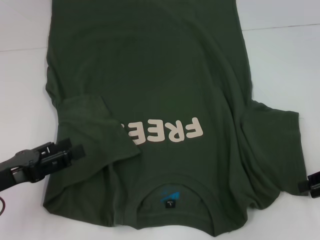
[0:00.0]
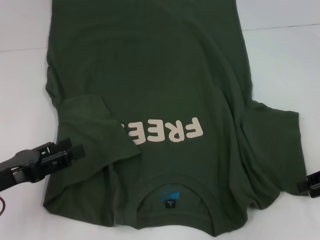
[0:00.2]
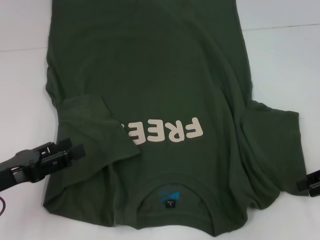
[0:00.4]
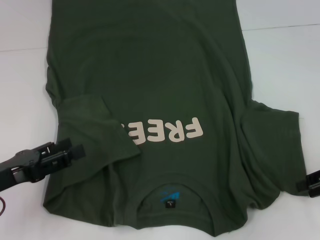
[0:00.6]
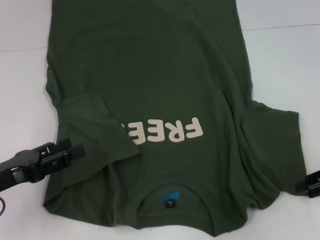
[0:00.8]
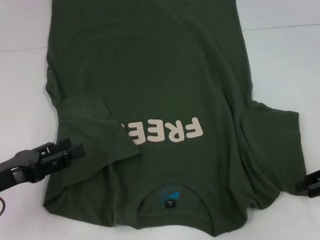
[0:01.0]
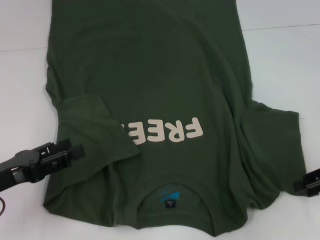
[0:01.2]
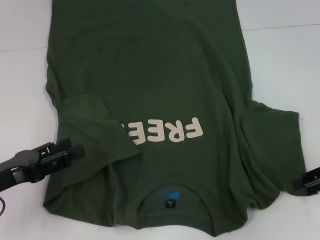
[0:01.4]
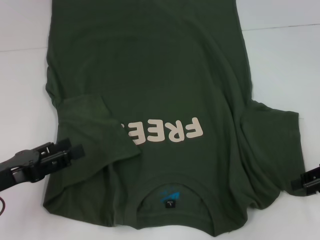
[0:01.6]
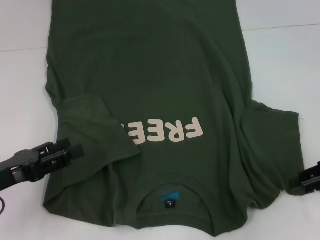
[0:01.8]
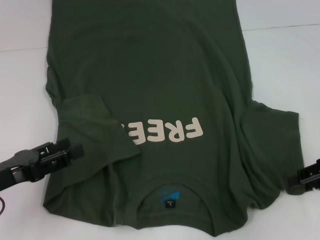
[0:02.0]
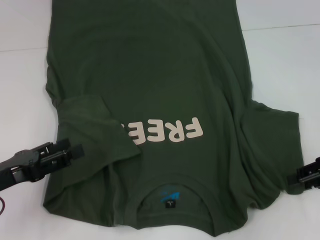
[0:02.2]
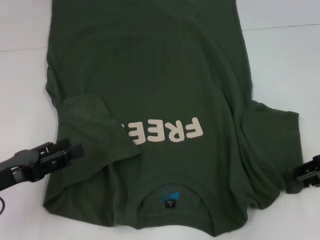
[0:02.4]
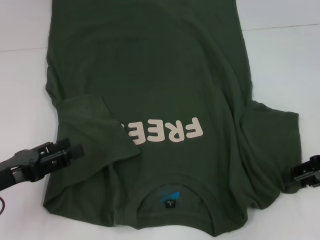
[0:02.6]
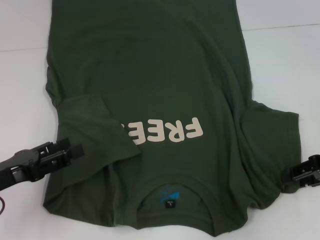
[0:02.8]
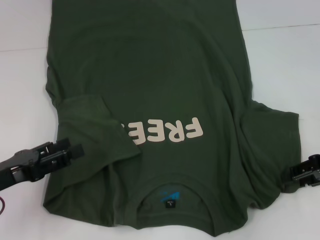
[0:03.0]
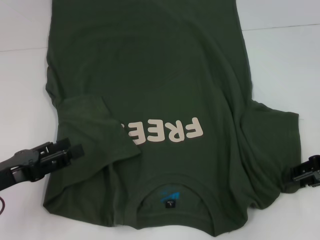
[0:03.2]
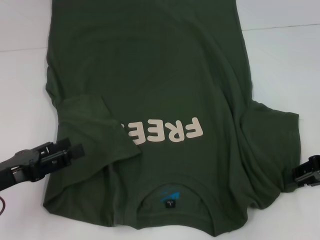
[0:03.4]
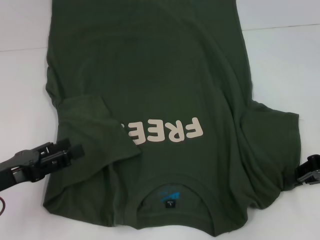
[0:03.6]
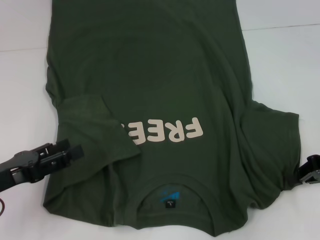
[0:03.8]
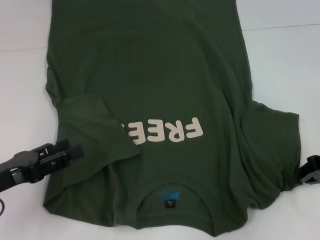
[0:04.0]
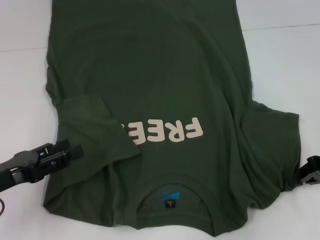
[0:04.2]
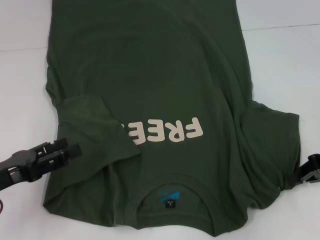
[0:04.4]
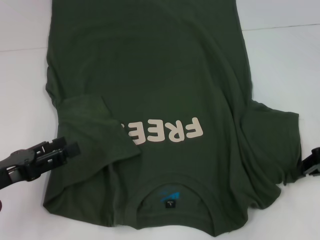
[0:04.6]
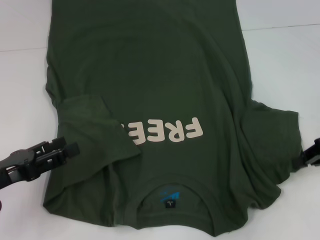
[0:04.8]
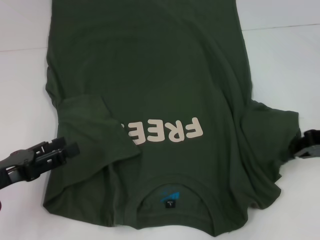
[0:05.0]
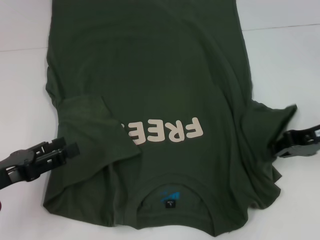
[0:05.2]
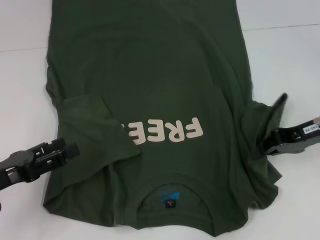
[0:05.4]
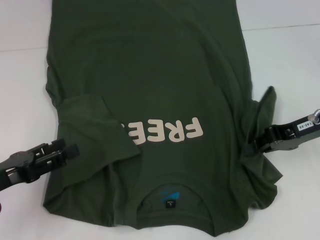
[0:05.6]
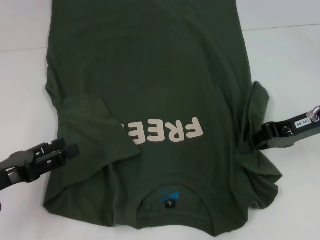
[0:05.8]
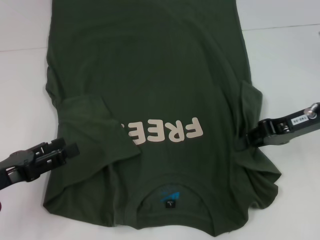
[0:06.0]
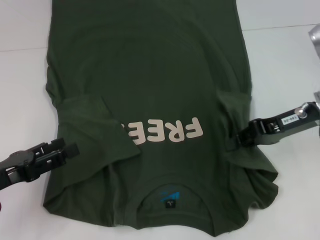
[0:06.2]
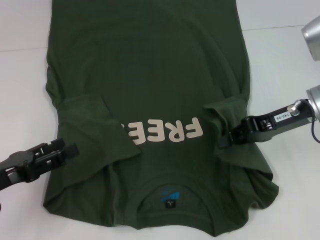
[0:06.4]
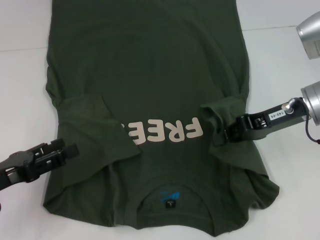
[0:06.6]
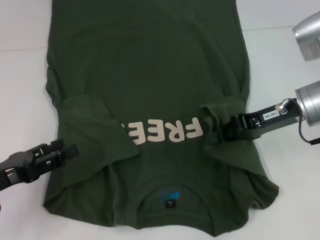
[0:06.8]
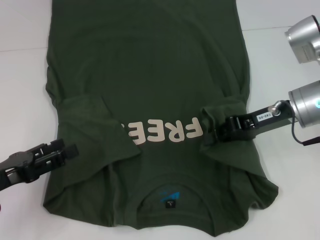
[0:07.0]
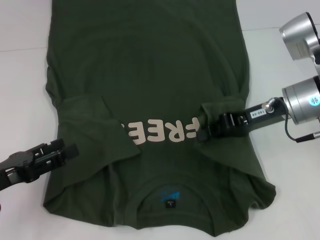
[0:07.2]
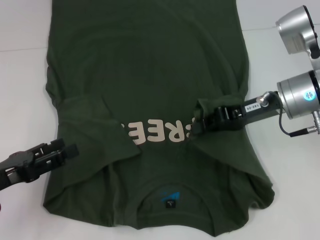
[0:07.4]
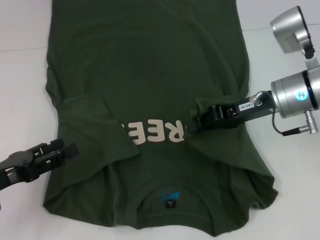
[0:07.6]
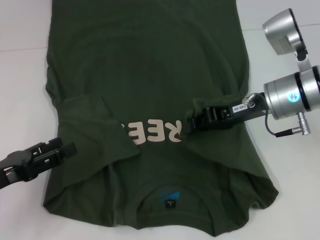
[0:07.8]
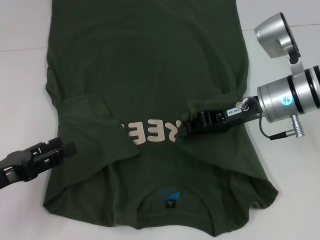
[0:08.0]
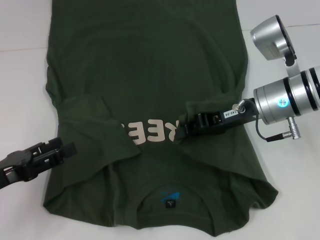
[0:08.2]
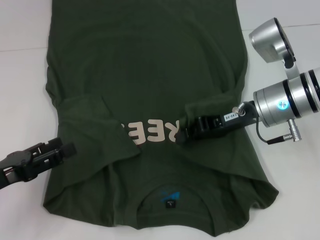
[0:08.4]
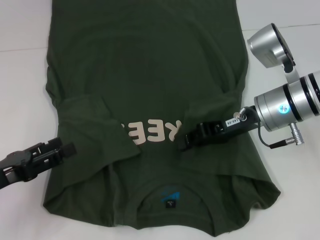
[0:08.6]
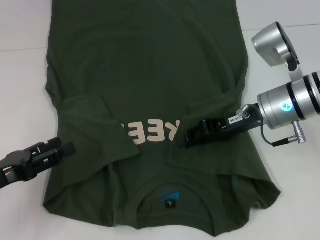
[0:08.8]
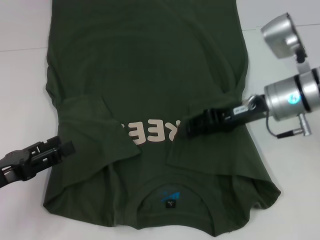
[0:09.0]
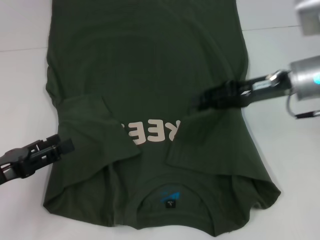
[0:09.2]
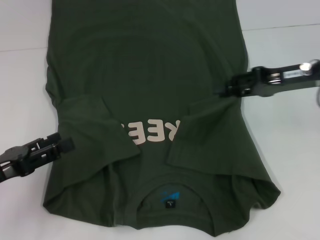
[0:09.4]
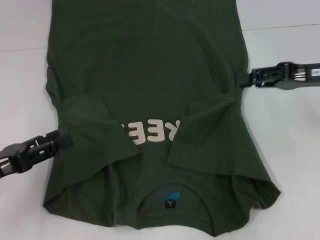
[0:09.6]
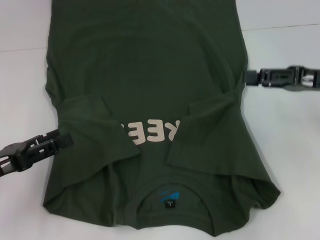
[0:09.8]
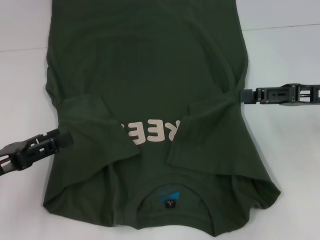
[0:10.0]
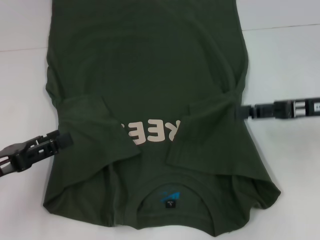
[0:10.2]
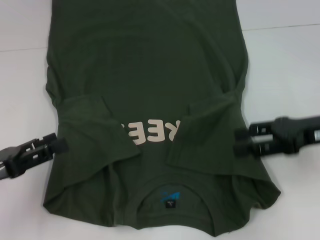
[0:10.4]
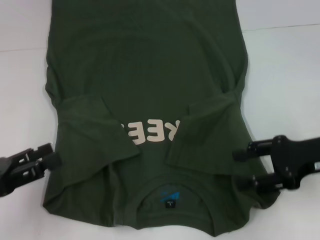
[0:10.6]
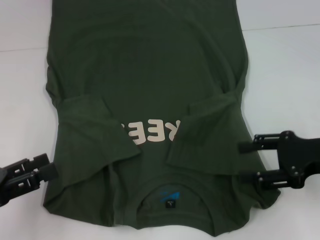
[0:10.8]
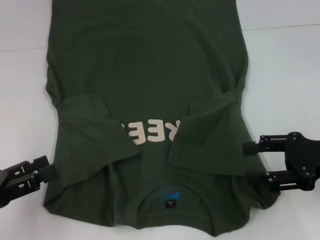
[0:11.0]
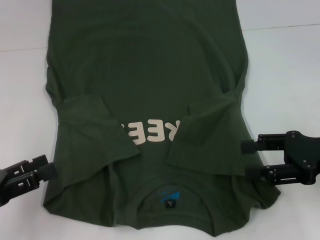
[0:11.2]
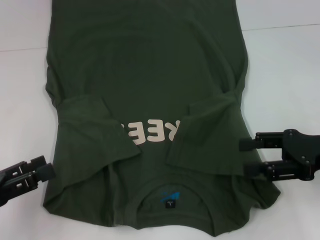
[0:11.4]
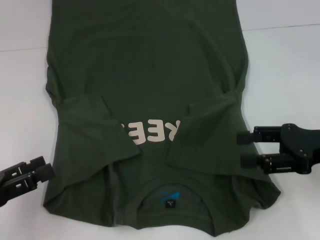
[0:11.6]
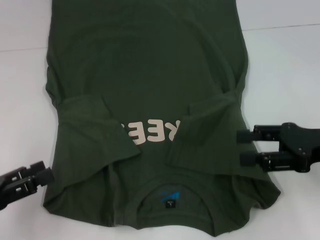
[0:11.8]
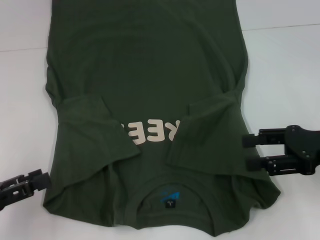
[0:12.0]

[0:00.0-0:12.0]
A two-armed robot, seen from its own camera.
Step, 0:00.0 to 0:08.6: Fold the bottom right sleeve with your right hand.
0:00.0 to 0:01.6: The two grippers keep their place.
0:01.6 to 0:03.0: The grippers make only small movements.
0:03.0 to 0:04.4: The right gripper closes up.
0:04.4 to 0:06.0: The right gripper travels to the left by some 5 cm.
0:06.0 to 0:07.6: The right gripper moves to the left, about 5 cm.
0:07.6 to 0:09.0: There are only small adjustments of the grippers.
0:09.0 to 0:10.4: The right gripper moves to the right and backward, about 10 cm, and opens its fingers.
0:10.4 to 0:12.0: There are only small adjustments of the grippers.

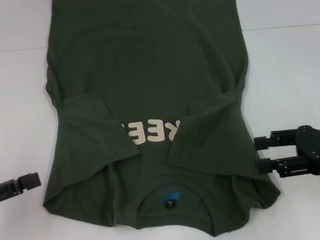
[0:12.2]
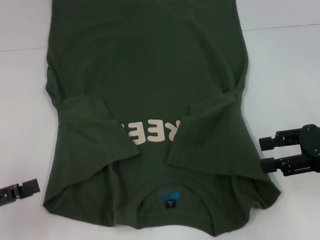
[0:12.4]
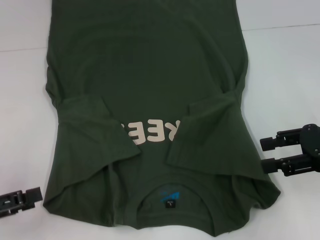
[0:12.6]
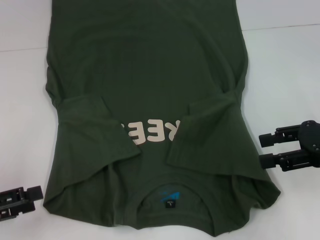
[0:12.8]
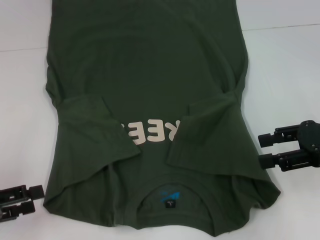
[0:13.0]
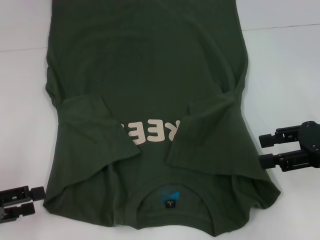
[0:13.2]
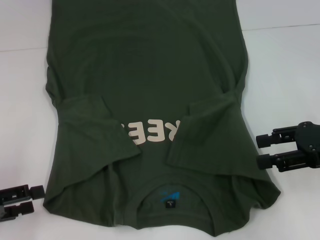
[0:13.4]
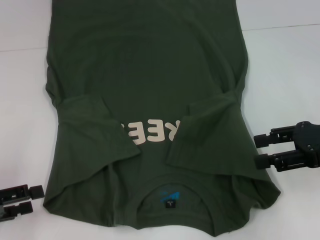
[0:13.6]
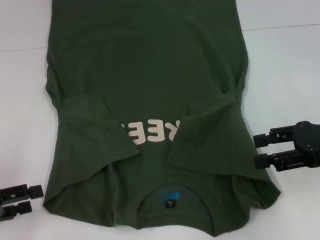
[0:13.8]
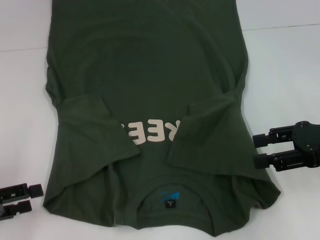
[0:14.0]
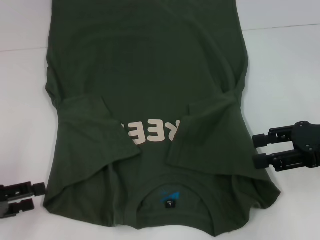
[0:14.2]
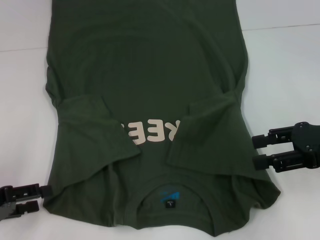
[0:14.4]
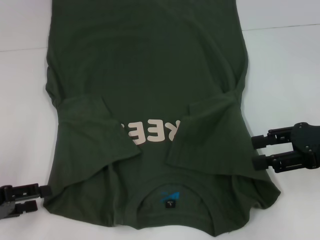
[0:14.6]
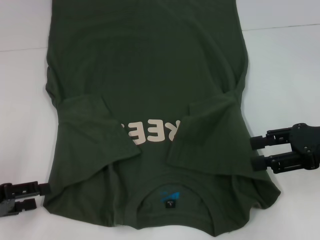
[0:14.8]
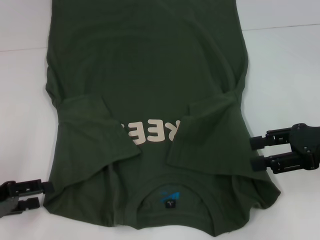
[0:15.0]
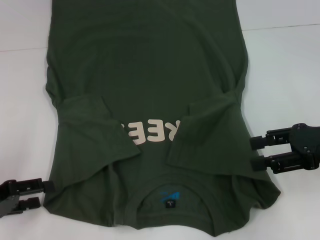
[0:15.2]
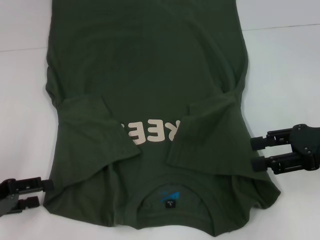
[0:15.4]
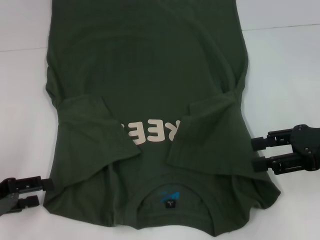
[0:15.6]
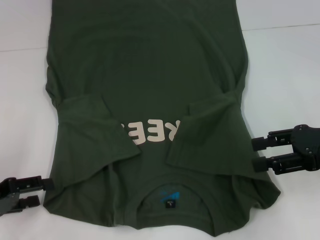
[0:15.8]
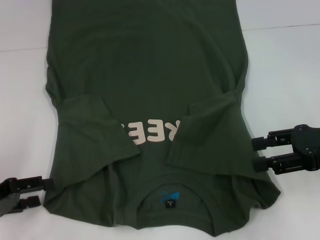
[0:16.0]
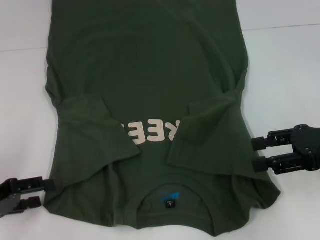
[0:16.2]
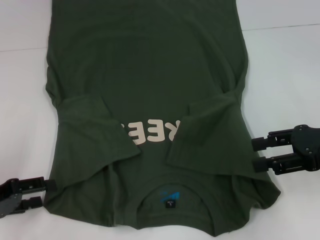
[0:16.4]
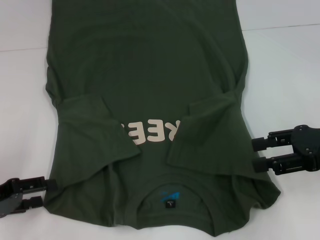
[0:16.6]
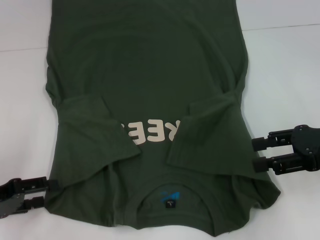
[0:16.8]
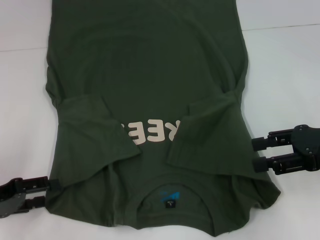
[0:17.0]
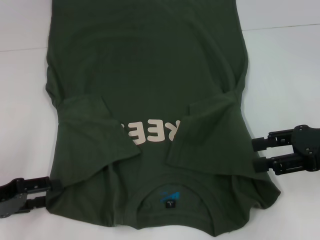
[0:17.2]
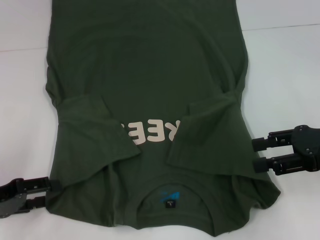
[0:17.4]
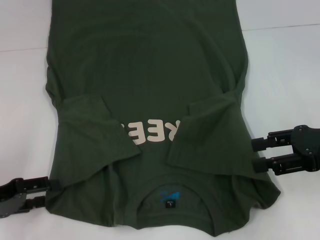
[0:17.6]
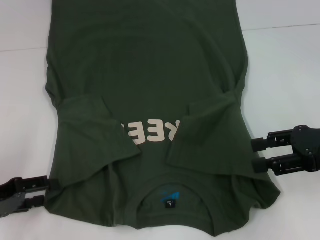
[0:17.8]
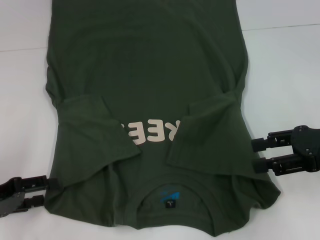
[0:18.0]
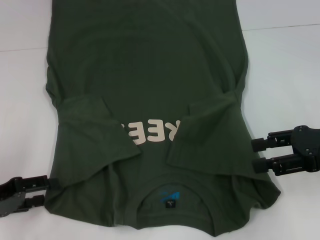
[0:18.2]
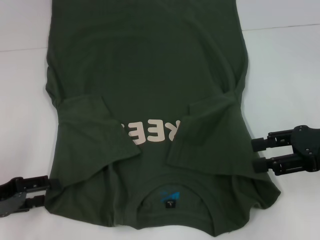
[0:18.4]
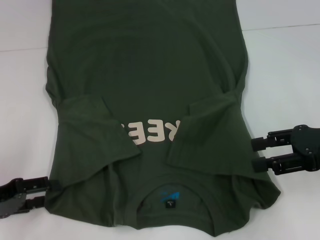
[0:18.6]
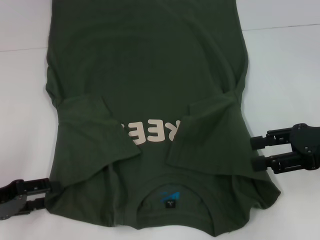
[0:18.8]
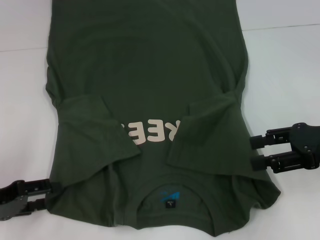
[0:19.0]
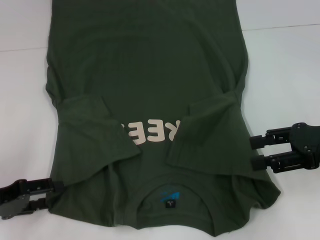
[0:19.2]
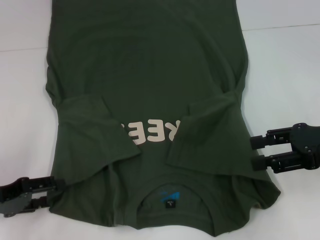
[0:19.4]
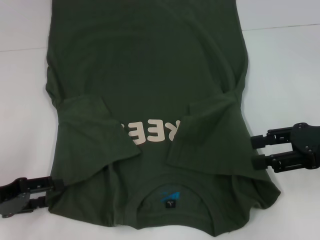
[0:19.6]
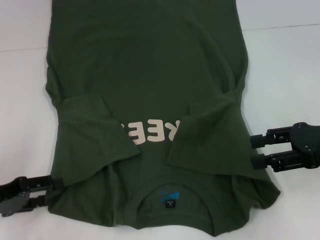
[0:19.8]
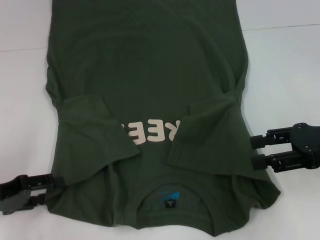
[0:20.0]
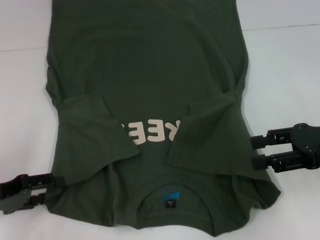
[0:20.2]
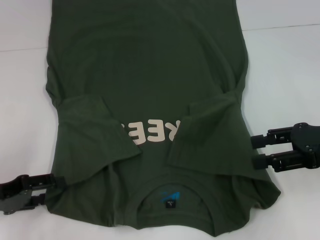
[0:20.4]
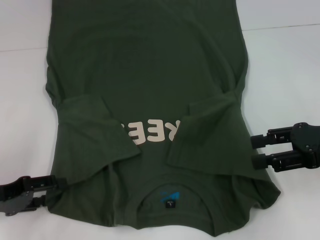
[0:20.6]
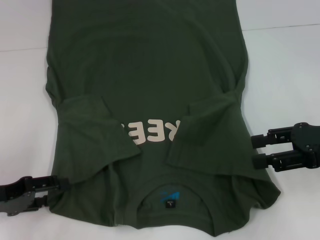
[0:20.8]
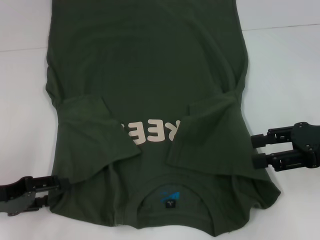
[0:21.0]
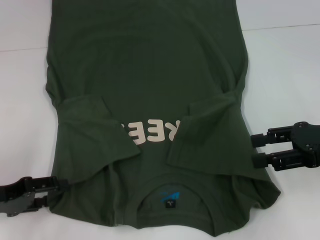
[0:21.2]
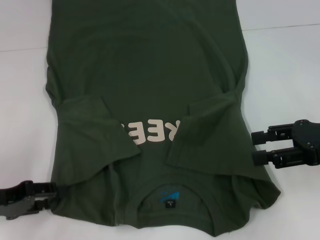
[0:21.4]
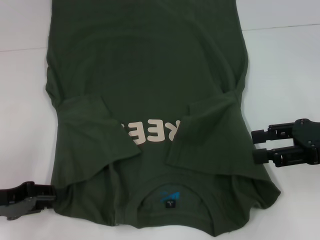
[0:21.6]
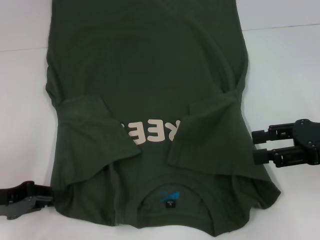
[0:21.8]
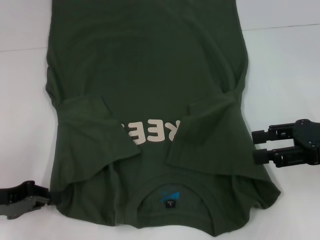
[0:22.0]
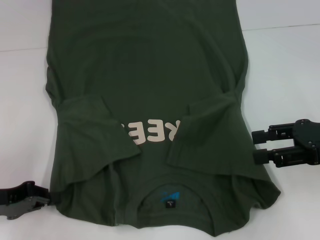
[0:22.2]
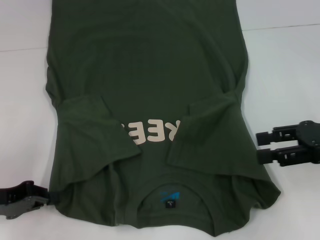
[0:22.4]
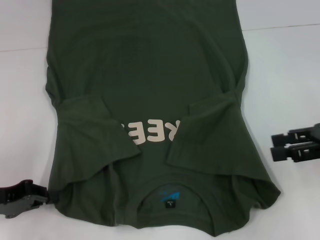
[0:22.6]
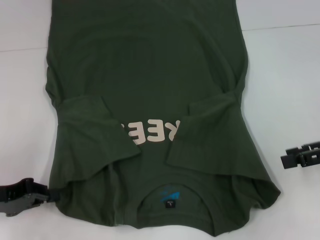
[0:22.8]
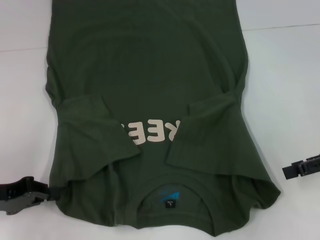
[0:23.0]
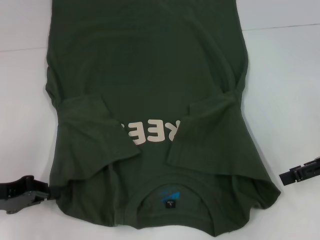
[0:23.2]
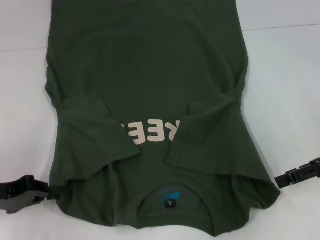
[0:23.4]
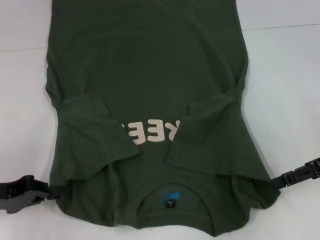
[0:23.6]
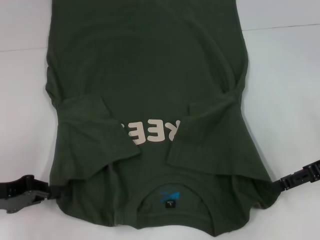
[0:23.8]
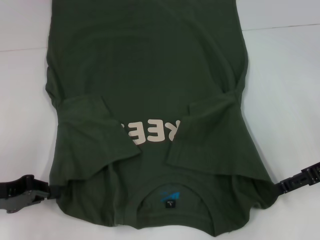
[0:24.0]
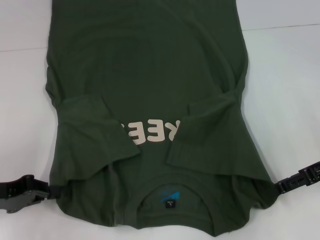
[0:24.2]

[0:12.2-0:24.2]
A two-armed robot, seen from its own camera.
Step, 0:12.2 to 0:22.2: Grab the bottom left corner with your left hand.
0:13.8 to 0:15.2: The grippers move only a little.
0:15.2 to 0:18.2: Neither gripper changes place.
0:18.2 to 0:21.2: Both grippers stay put.
0:21.2 to 0:22.6: The left gripper closes its fingers.
